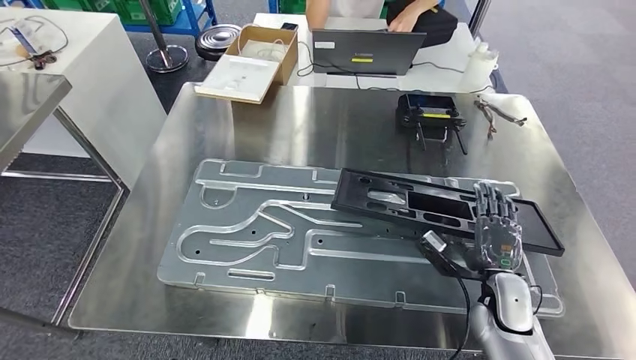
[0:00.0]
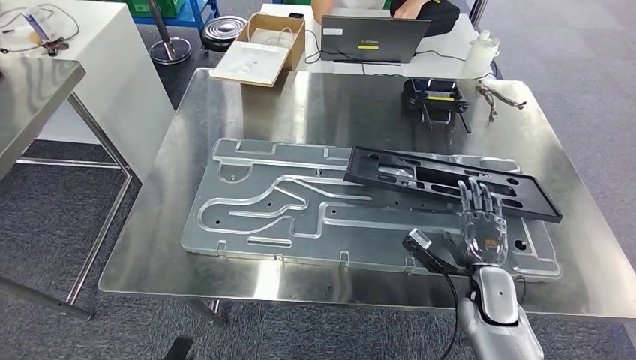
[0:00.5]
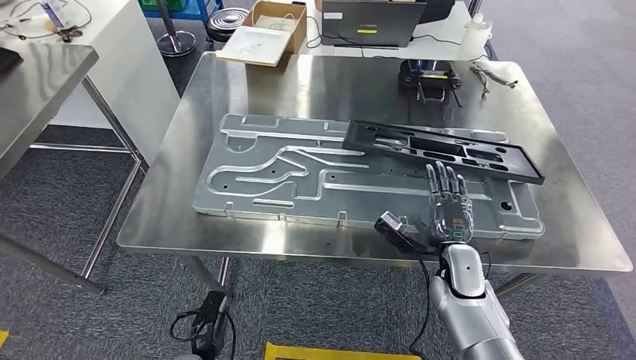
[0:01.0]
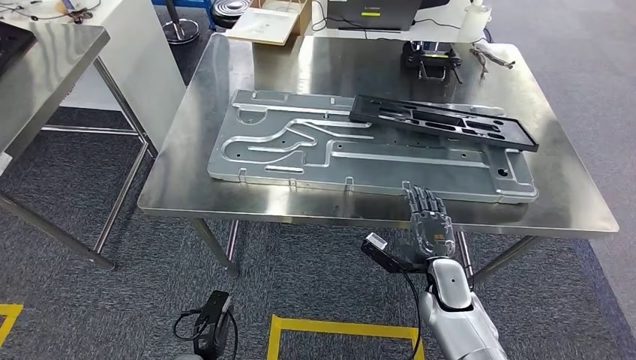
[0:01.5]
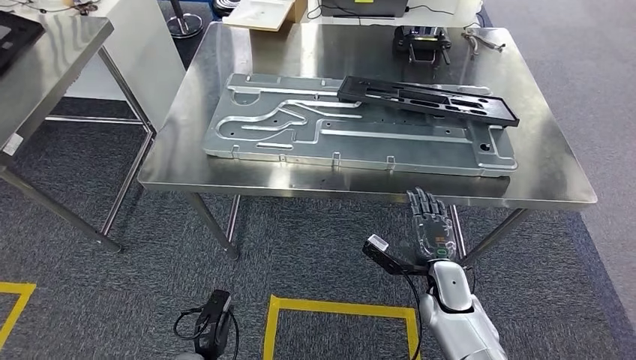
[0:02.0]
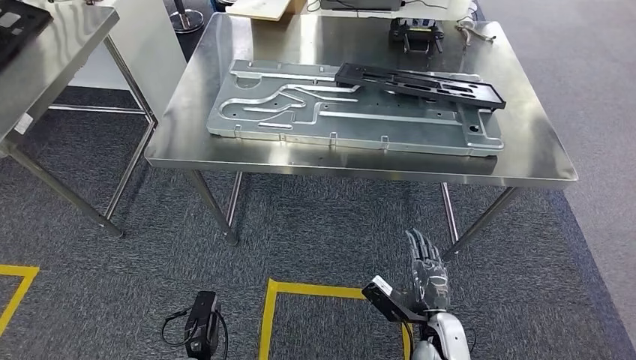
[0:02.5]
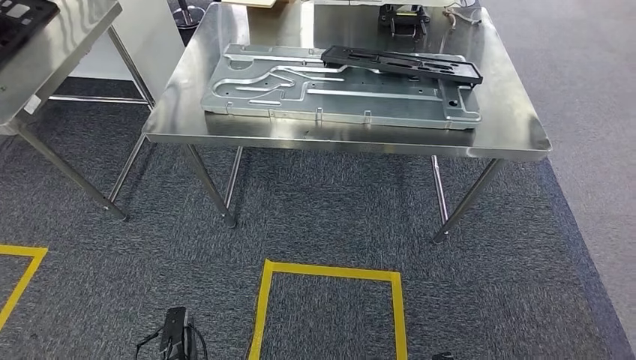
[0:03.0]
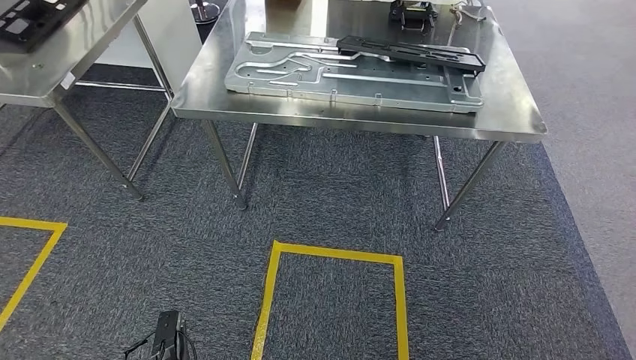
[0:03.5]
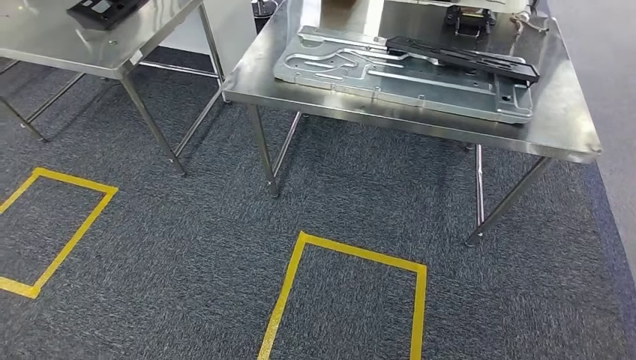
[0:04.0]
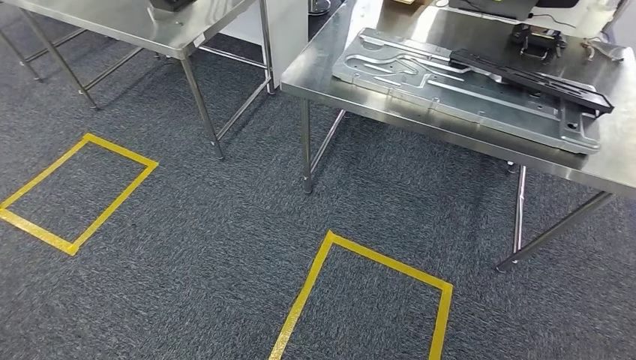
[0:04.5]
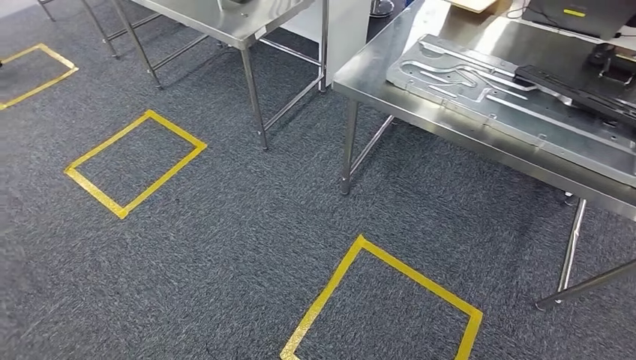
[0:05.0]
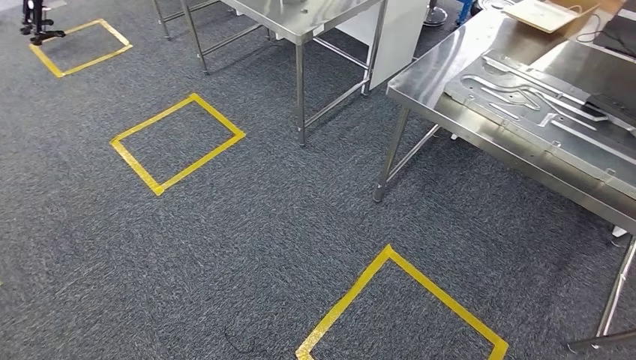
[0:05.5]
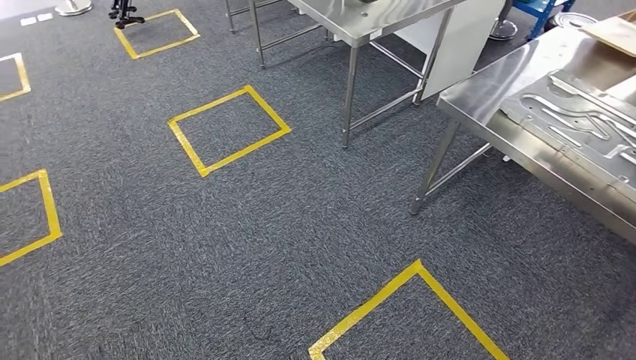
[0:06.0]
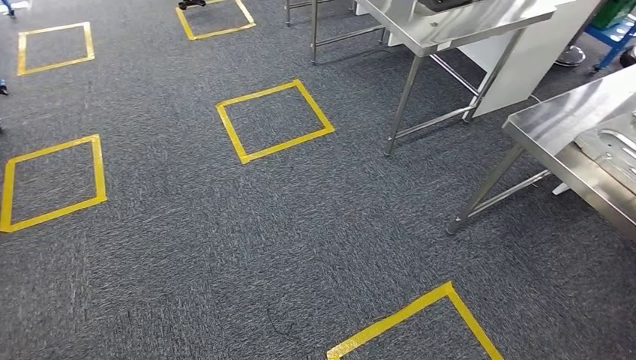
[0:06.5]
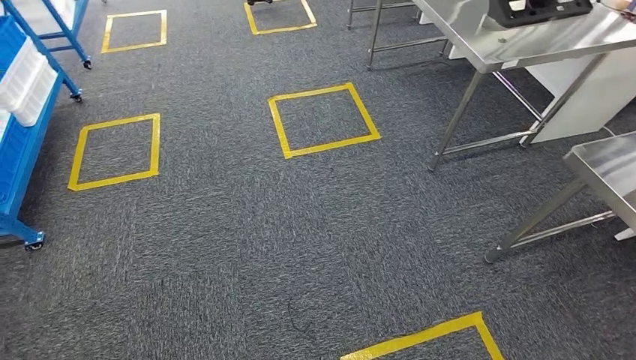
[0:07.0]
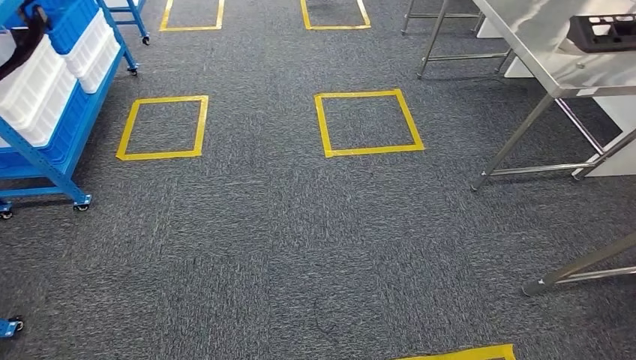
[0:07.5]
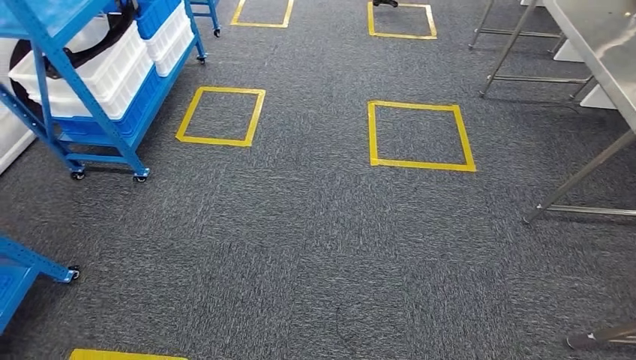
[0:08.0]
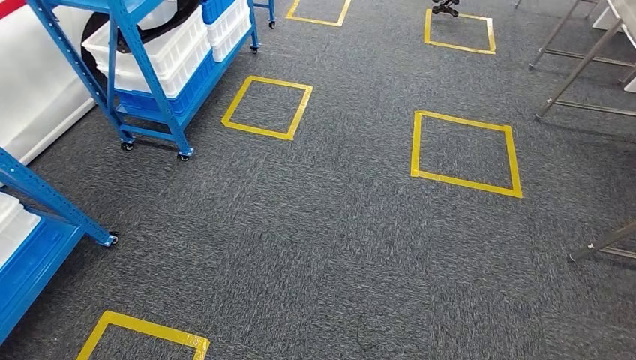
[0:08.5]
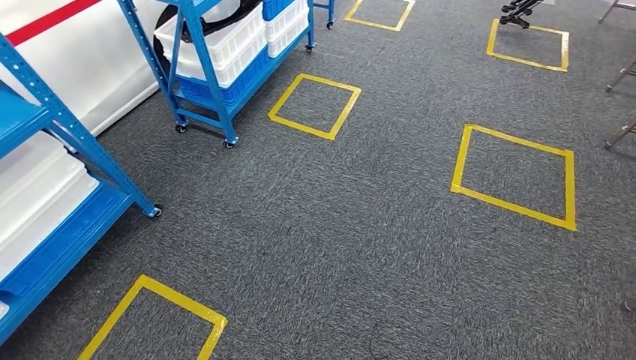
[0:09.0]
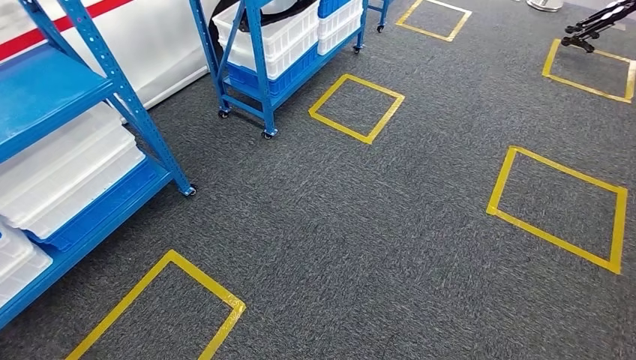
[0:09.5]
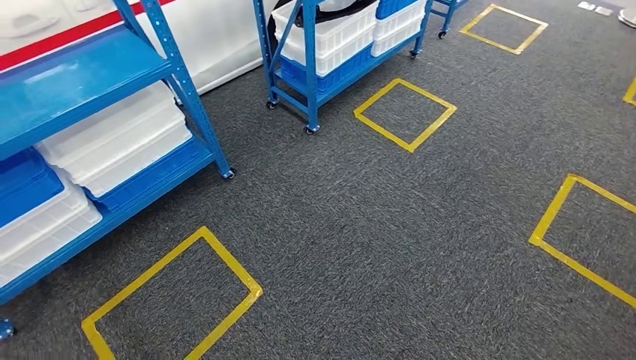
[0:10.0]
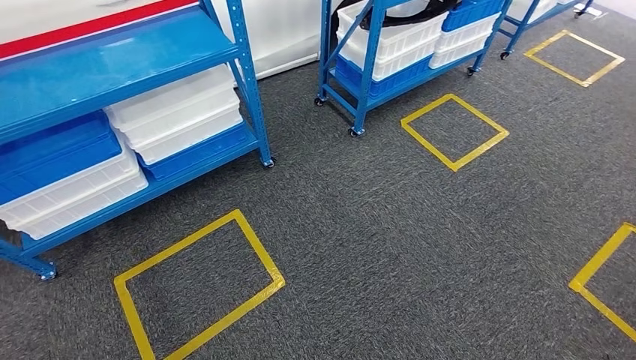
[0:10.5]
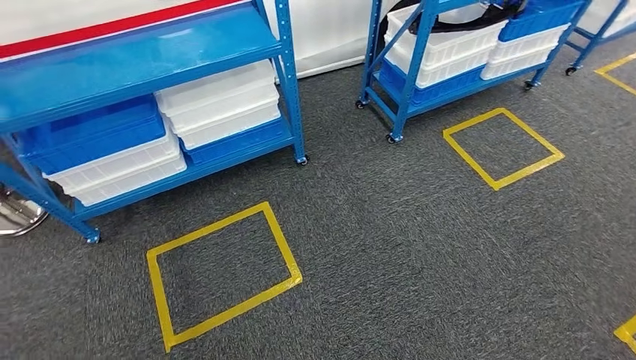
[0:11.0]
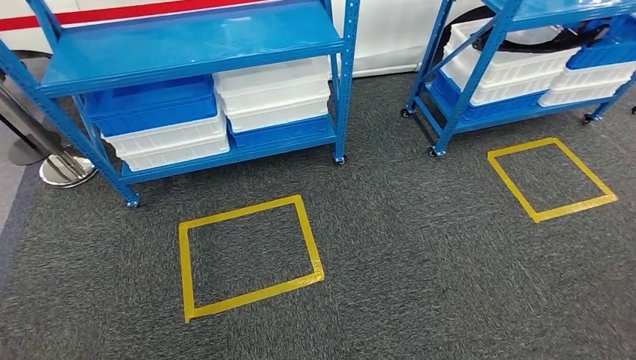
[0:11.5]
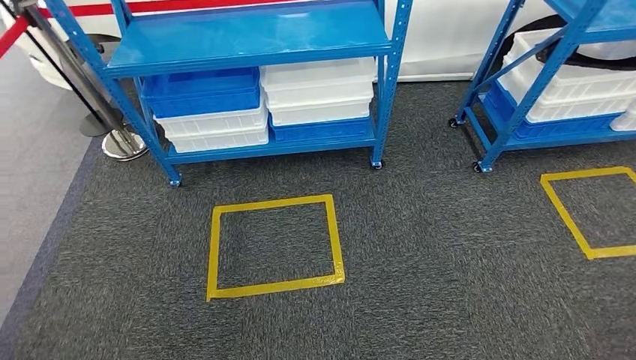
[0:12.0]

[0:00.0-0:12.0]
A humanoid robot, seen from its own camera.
Step, 0:00.0 to 0:02.5: Insert the large material into the corresponding slot on the workbench.

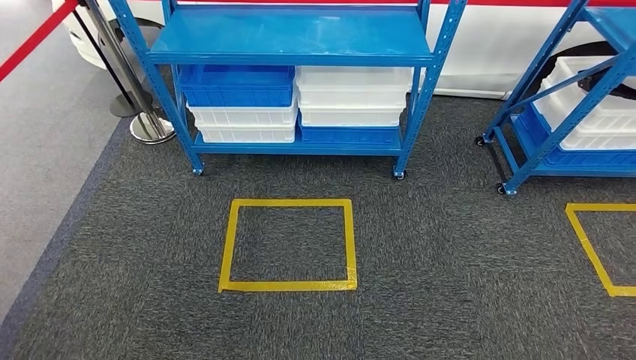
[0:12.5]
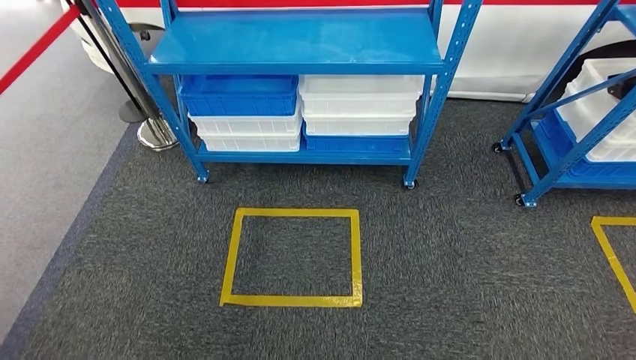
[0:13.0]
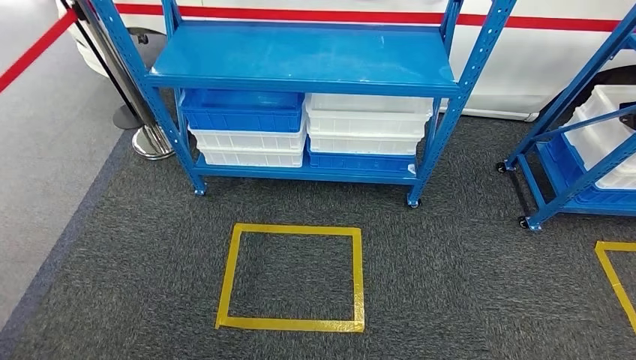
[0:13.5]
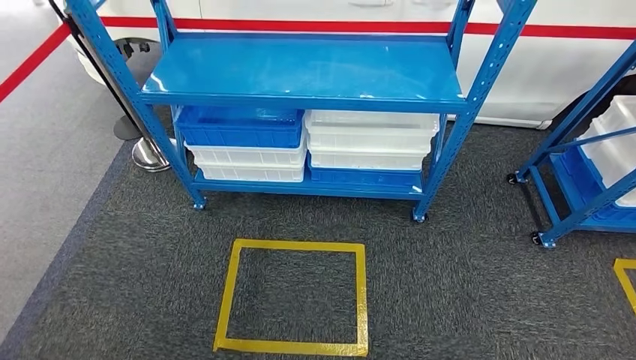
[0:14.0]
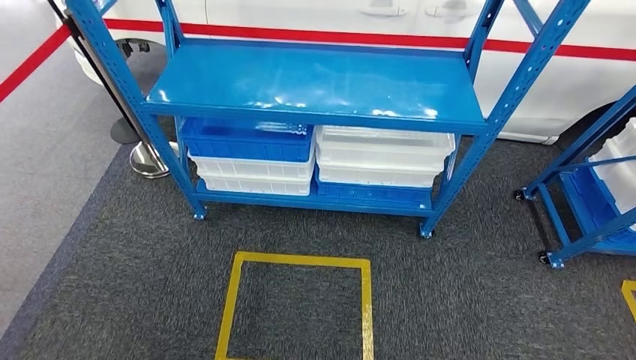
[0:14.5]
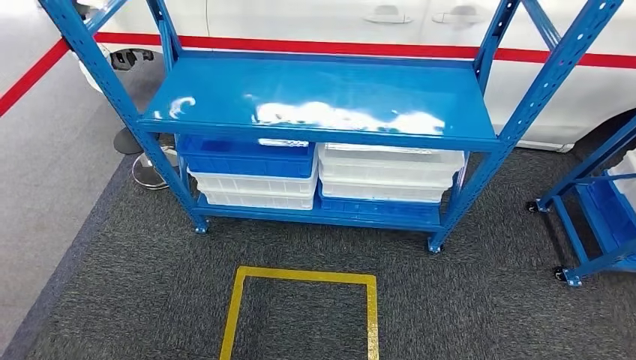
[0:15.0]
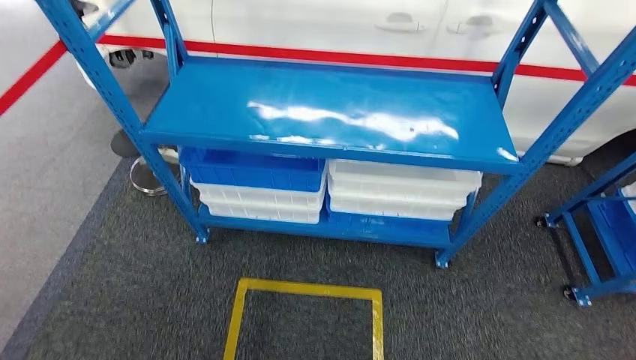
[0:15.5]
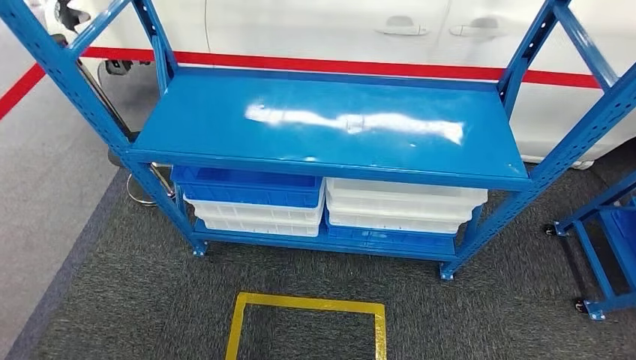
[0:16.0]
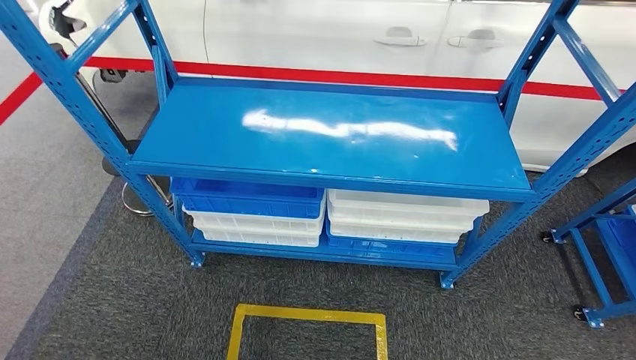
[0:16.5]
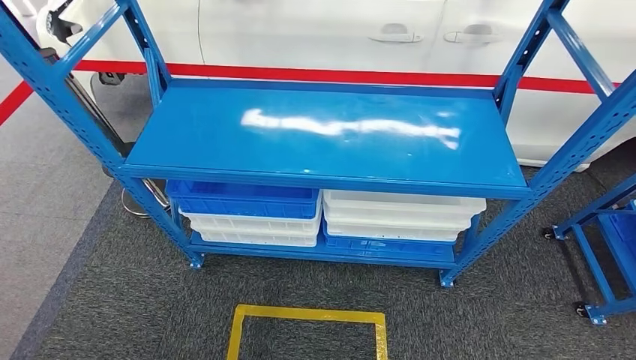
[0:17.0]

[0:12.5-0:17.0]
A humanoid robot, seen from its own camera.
Step, 0:12.5 to 0:17.0: Move to the initial position of the shelf.
